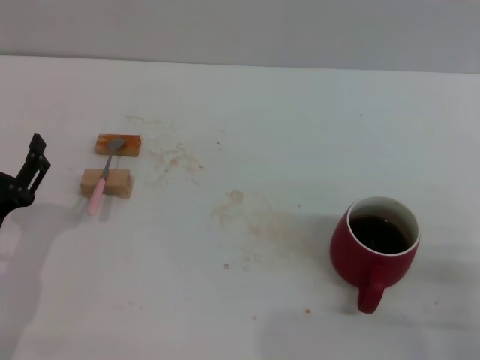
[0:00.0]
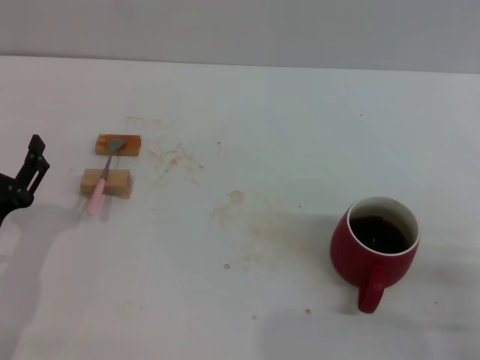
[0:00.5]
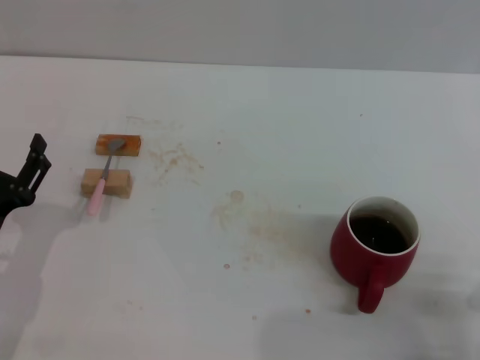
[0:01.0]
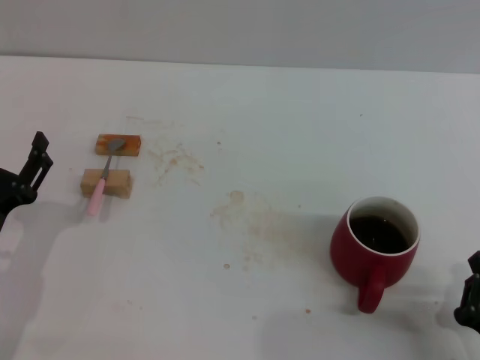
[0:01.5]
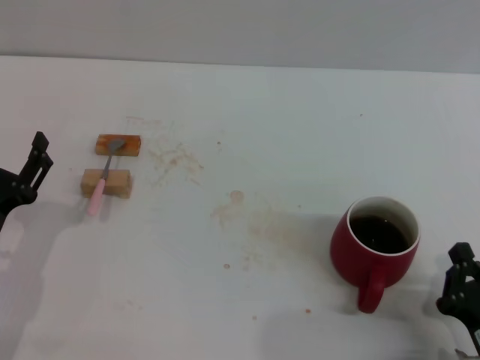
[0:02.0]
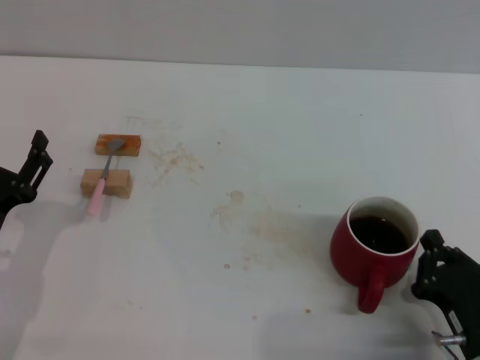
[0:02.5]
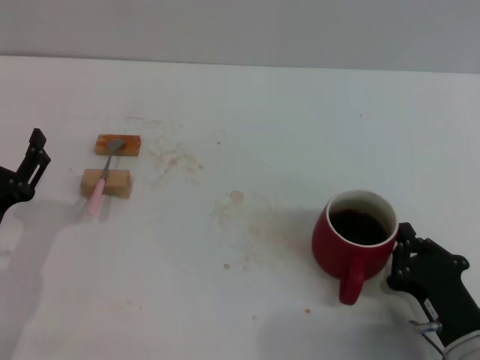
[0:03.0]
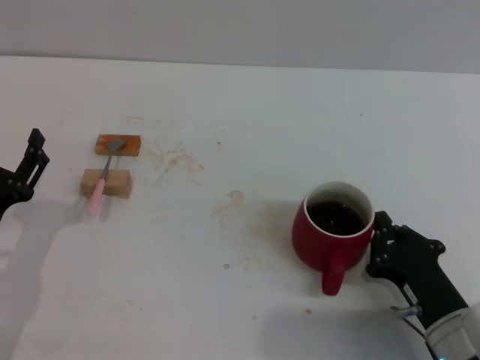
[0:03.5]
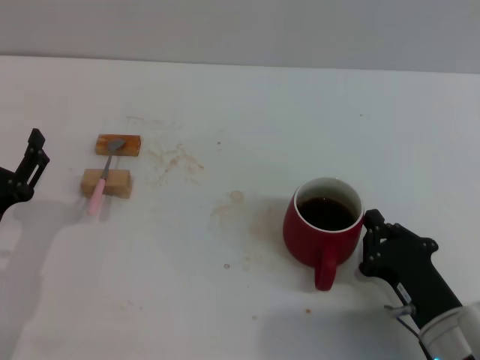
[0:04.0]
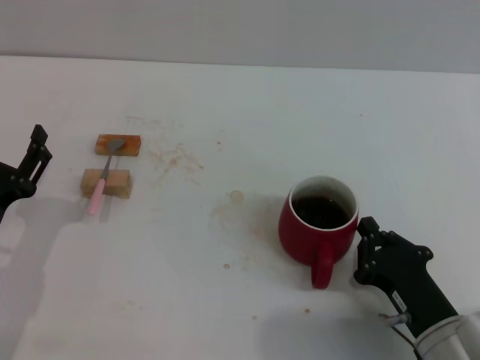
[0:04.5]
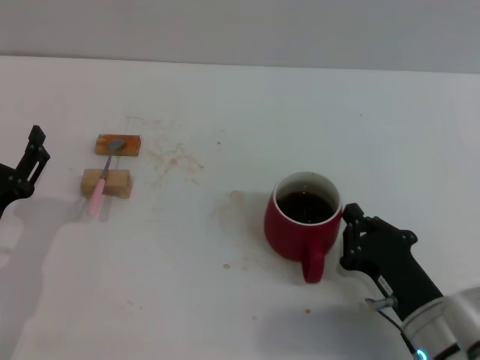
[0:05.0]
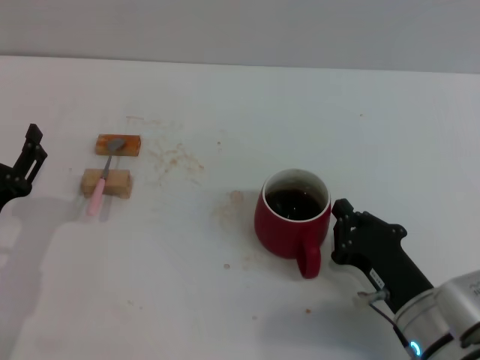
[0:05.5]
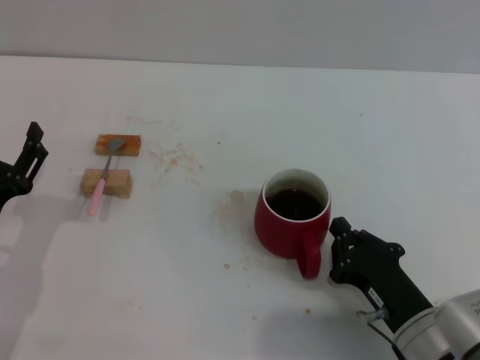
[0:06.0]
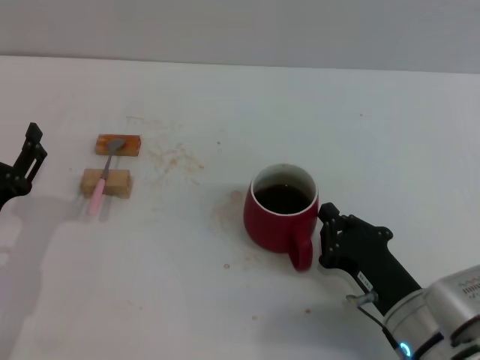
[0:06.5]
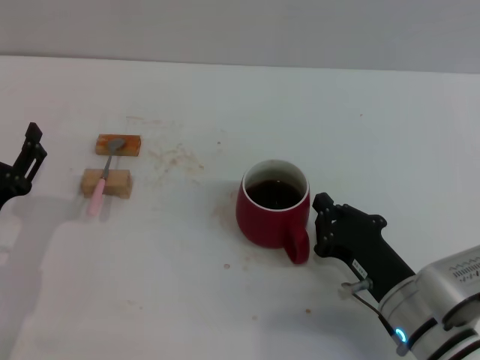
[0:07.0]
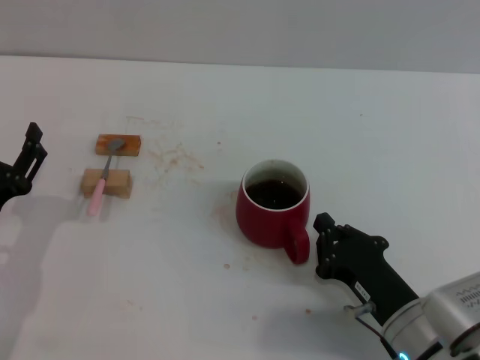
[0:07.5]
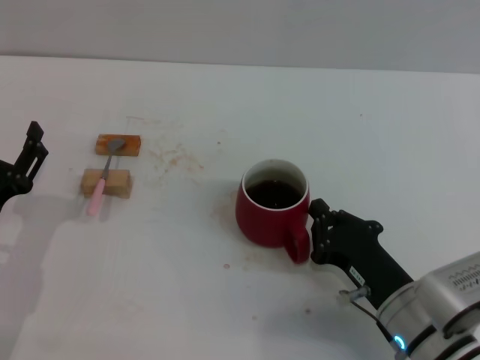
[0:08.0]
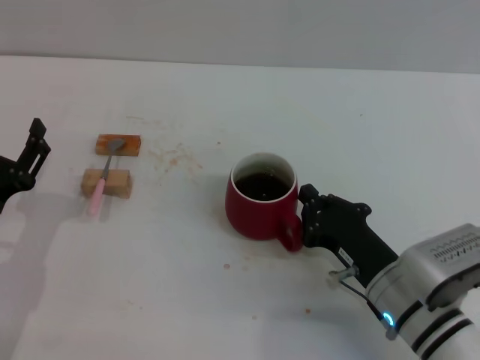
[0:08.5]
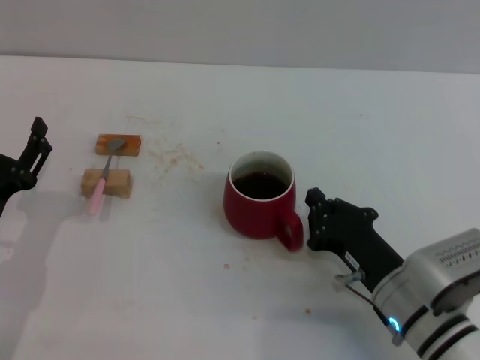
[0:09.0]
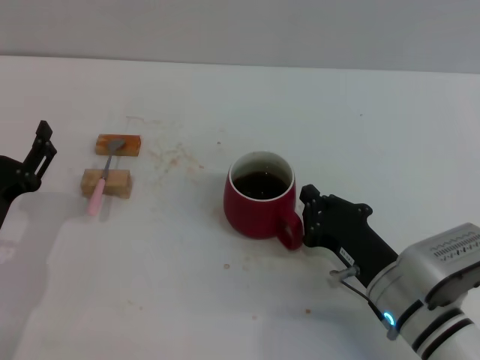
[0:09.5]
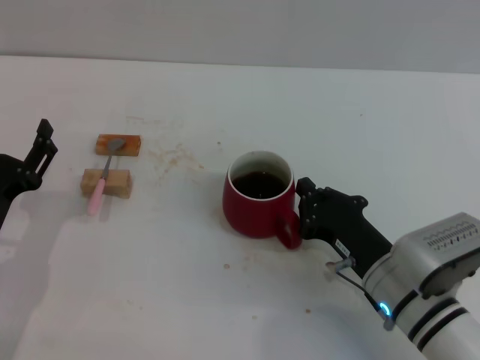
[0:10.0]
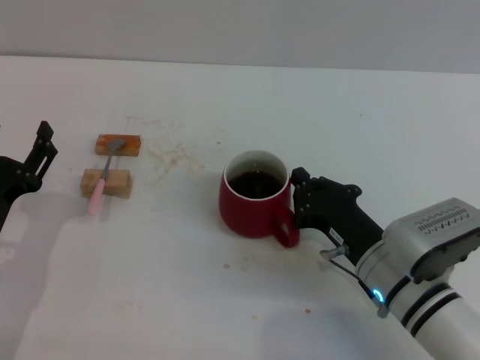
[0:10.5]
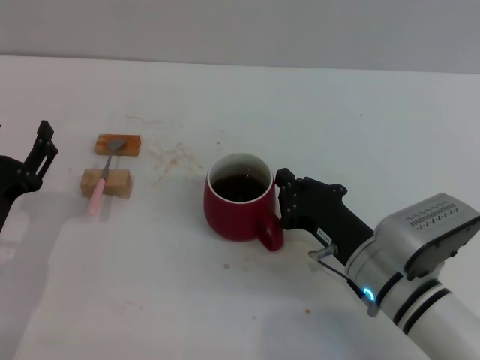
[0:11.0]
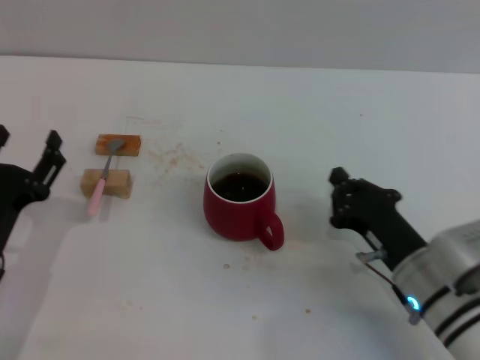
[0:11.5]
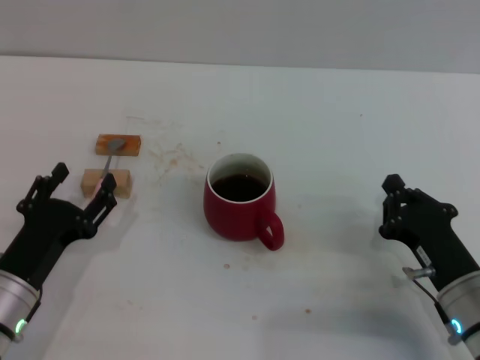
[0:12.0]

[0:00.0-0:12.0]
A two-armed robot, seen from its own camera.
Task of the whole recording: Move the red cup to the center, lift the pink spoon, stir it three times in the cup, and put the spoon into the cup.
Step, 0:00.0 to 0:11.0: Move the cup with coffee to the center of view with the right gripper.
0:00.0 to 0:02.0: The right gripper shifts approximately 5 cm to the left.
0:02.0 to 0:04.0: The right gripper shifts approximately 5 cm forward.
0:04.0 to 0:08.0: The grippers move only a little.
0:08.0 to 0:10.0: The grippers move only a little.
0:10.0 to 0:12.0: The right gripper goes approximately 5 cm to the right.

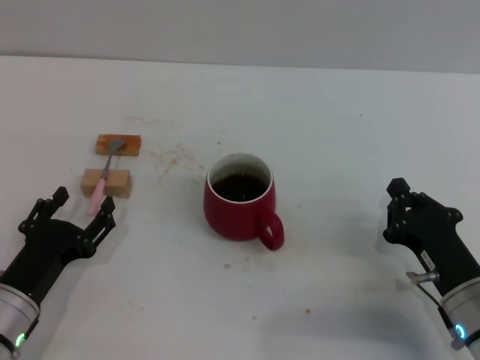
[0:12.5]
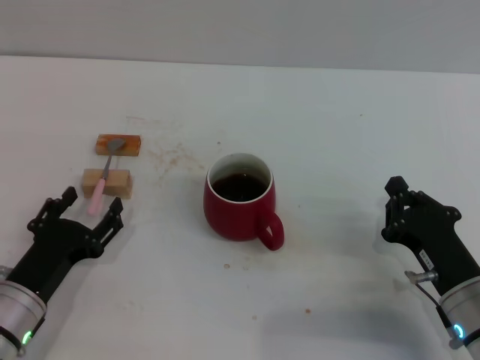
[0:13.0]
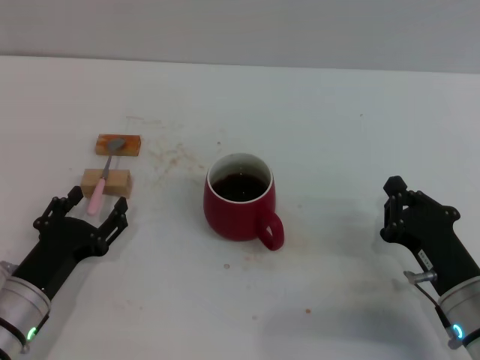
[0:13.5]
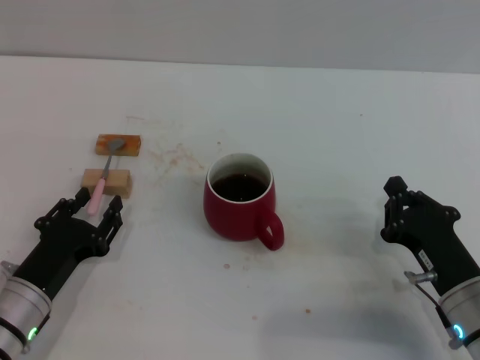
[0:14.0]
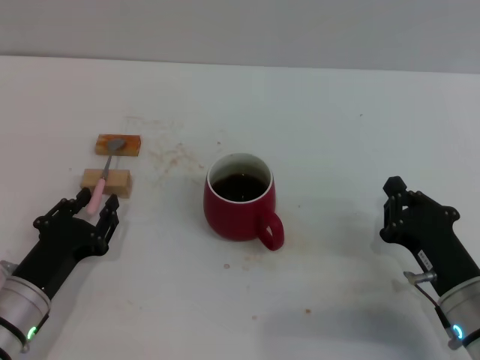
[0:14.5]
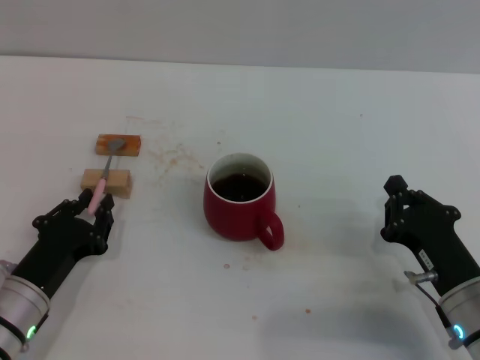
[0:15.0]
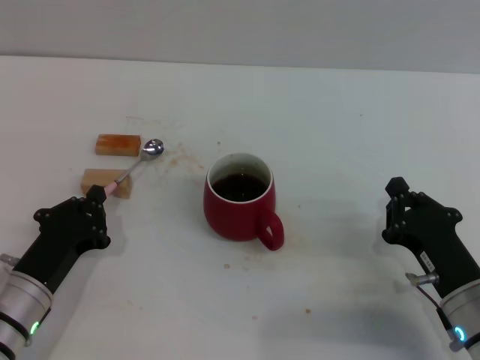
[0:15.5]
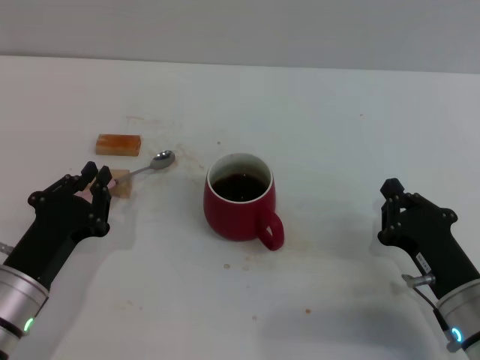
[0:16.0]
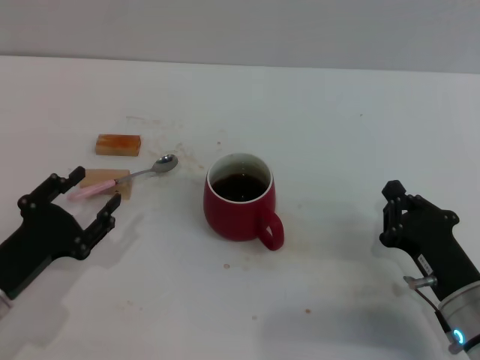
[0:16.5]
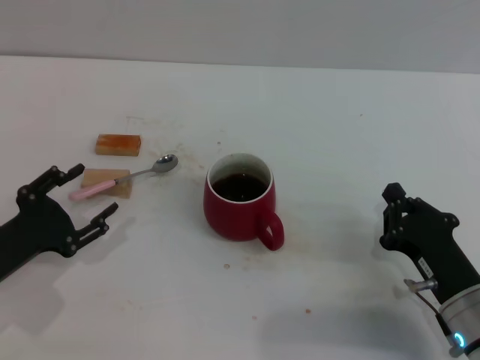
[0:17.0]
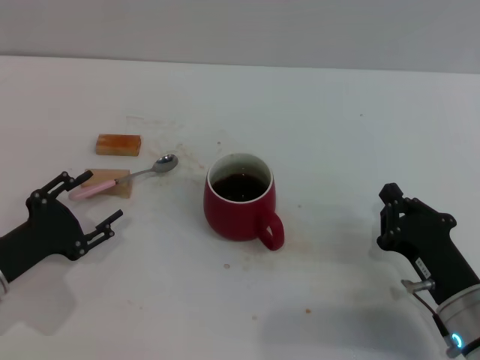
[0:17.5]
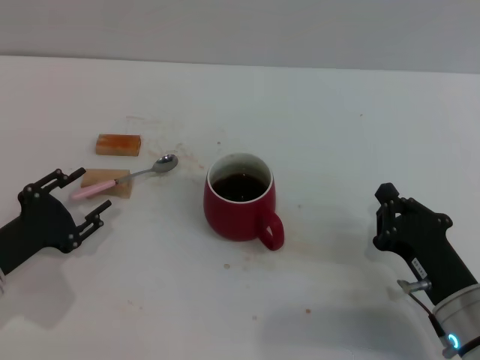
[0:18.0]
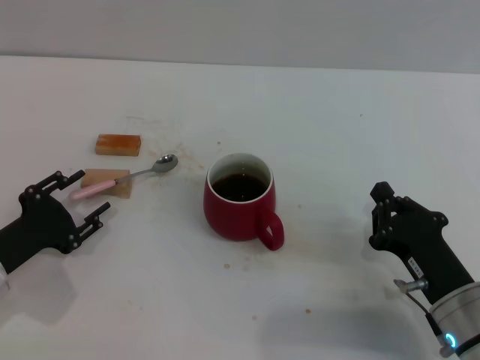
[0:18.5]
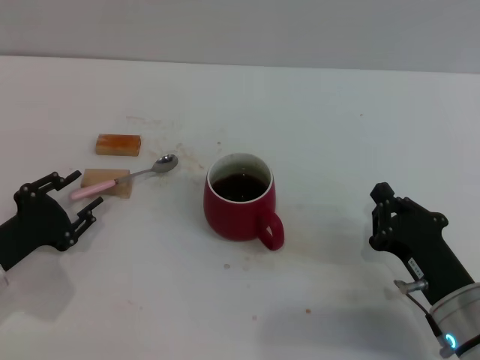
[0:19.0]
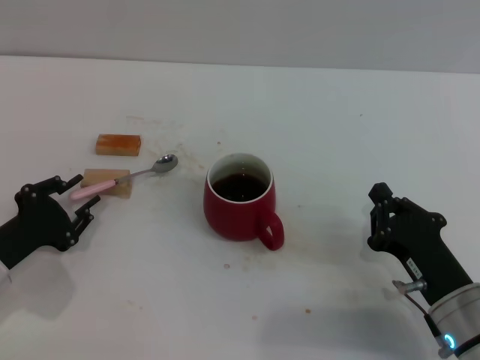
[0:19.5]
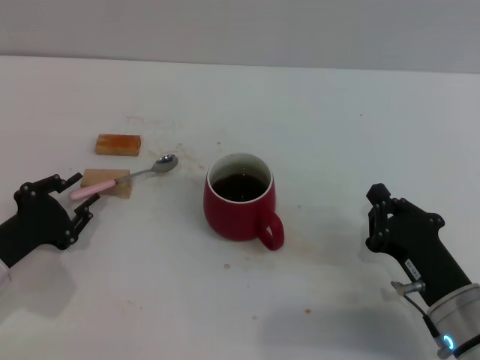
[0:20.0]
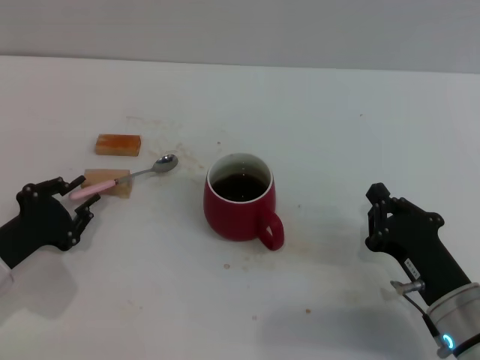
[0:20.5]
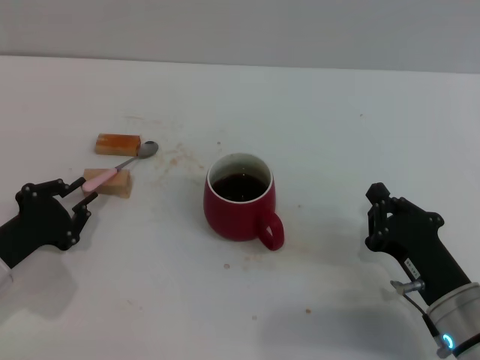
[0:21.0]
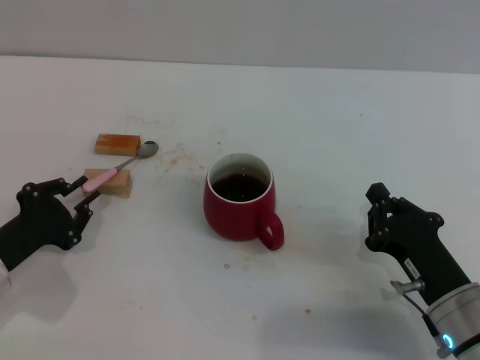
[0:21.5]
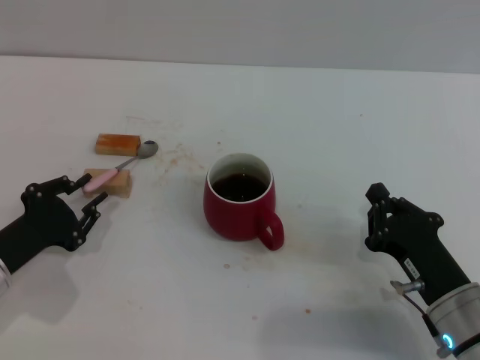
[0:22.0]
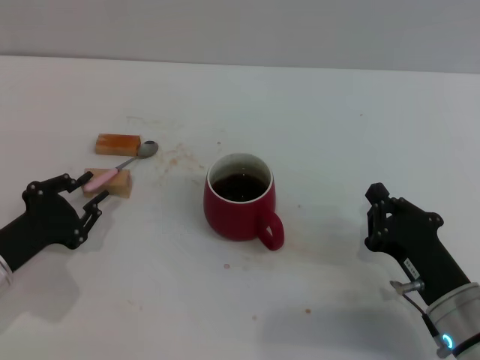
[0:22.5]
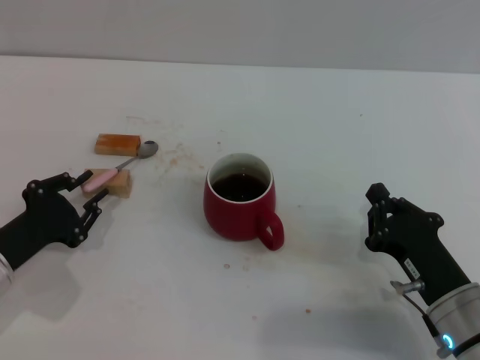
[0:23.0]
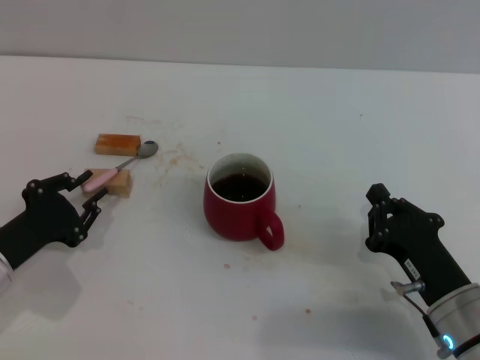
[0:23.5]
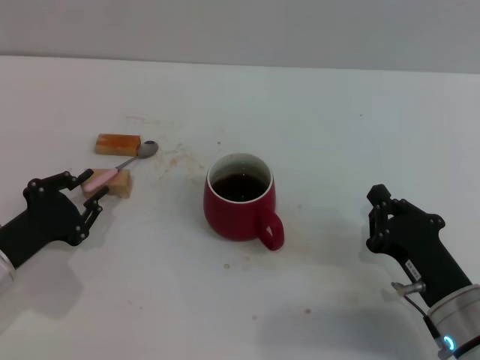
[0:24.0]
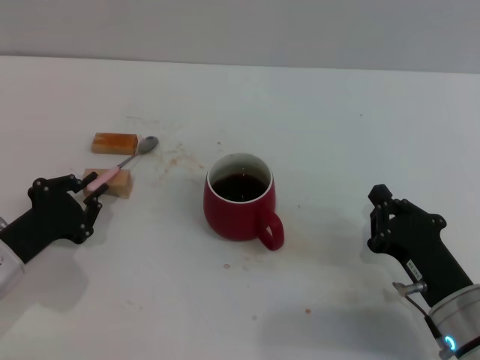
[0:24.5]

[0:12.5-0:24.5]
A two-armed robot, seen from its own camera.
Task of the whole recording: Move the red cup to the center, lift the pink spoon, stir it three times in the cup, and put the spoon into the cup.
0:12.5 to 0:14.5: Neither gripper changes place.
0:14.5 to 0:16.5: The left gripper closes, then opens again.
0:18.5 to 0:20.5: The left gripper closes its fingers.
0:20.5 to 0:22.5: Both grippers stay put.
0:22.5 to 0:24.5: Neither gripper changes place.

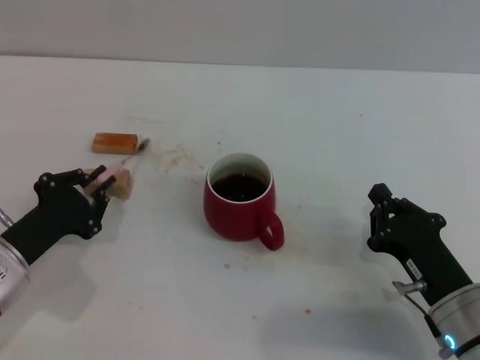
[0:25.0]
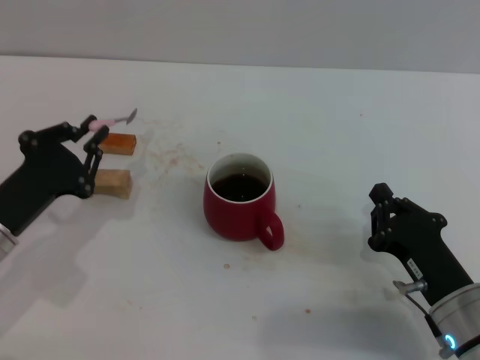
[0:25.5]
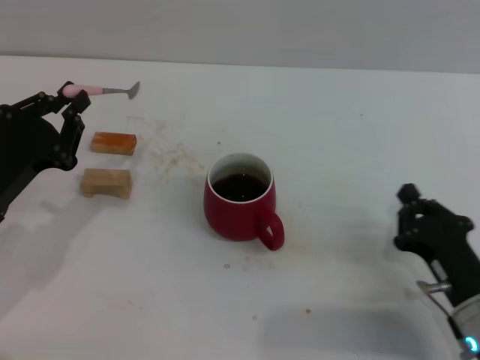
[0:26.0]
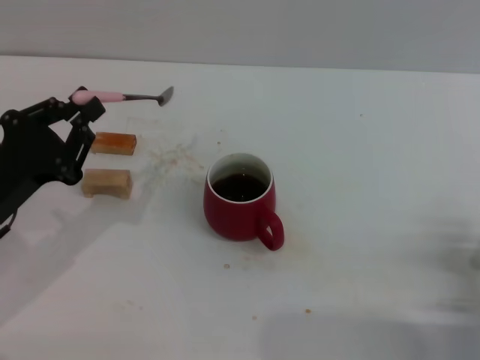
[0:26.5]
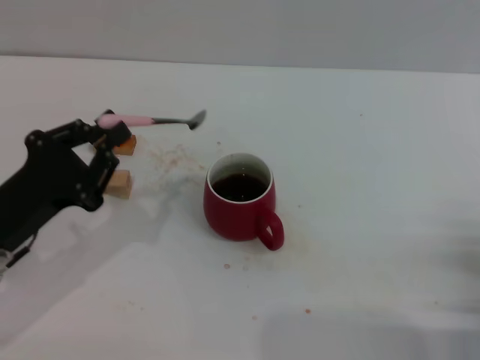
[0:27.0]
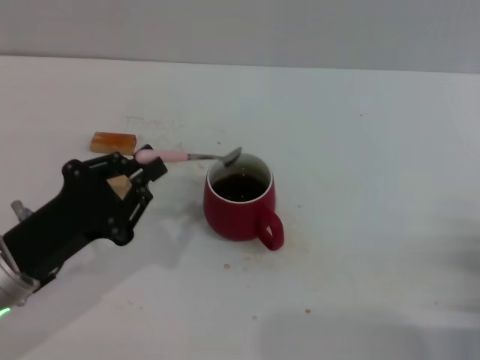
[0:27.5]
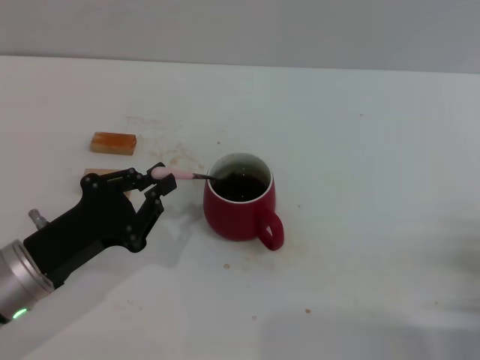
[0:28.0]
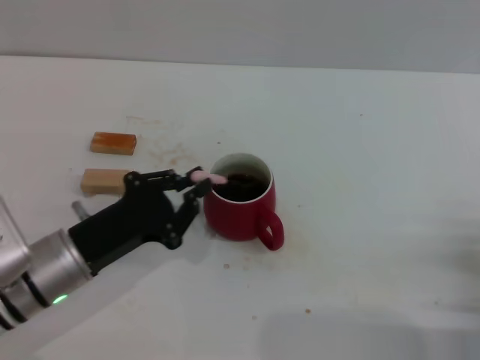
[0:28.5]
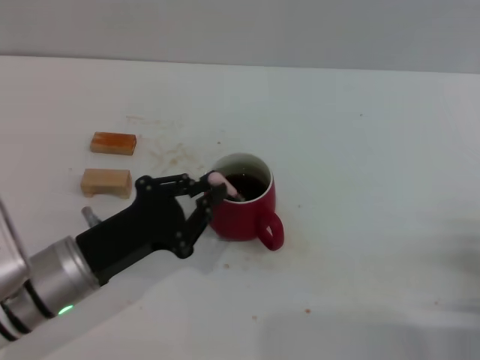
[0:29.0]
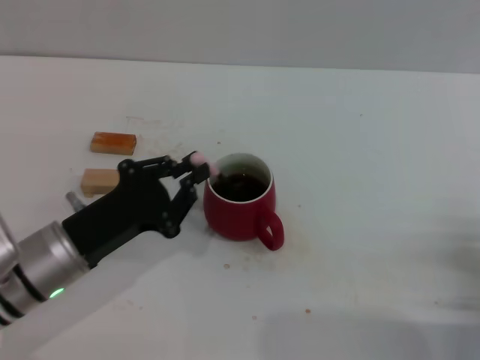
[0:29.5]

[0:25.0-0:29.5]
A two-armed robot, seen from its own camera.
Task of the whole recording: Move the red cup to the center, lift the pink spoon, stir it three times in the cup, and put the spoon into the cup.
0:25.0 to 0:27.0: The right gripper shifts some 10 cm to the right; the left gripper is displaced upward by some 5 cm.
0:27.0 to 0:29.5: The left gripper moves to the right, roughly 5 cm.
